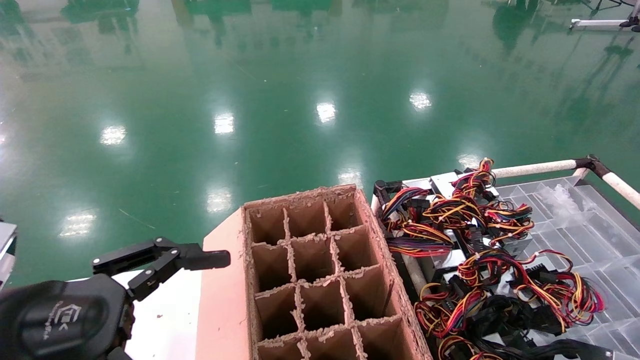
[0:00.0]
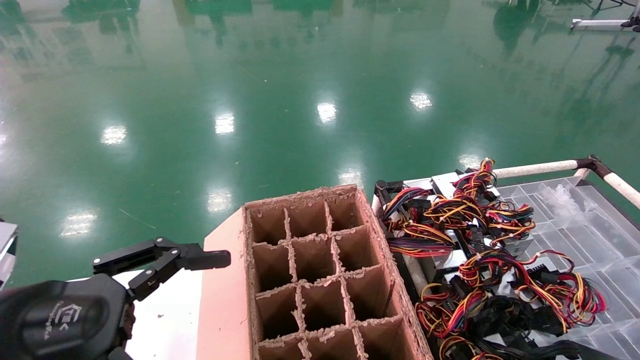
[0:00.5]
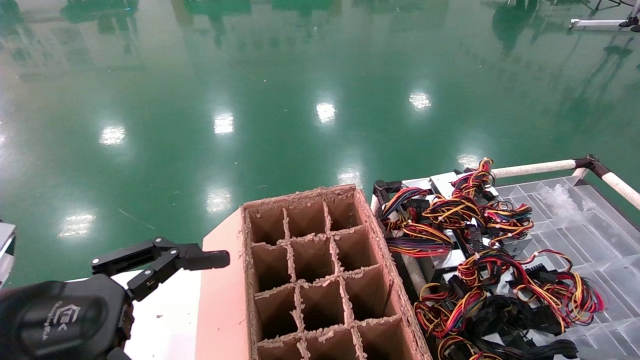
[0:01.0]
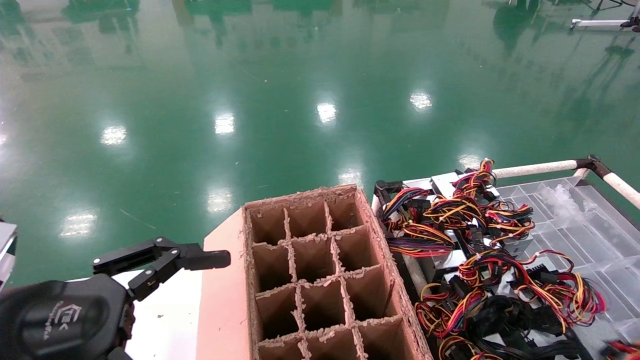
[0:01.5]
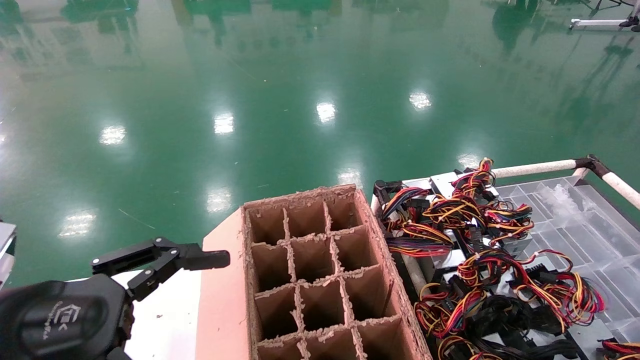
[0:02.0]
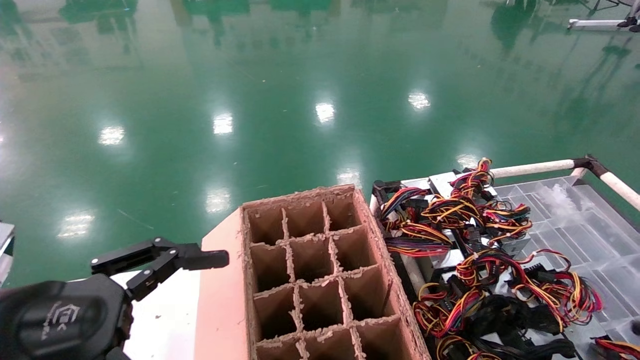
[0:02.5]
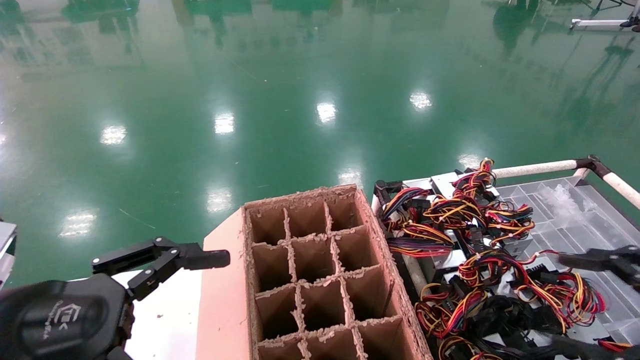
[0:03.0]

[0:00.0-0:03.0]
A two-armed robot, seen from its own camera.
0:01.5 to 0:03.0: The right gripper heads to the left, covering roughly 10 cm, and opens its fingers.

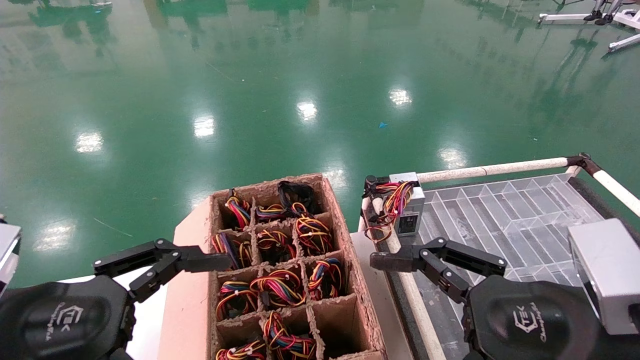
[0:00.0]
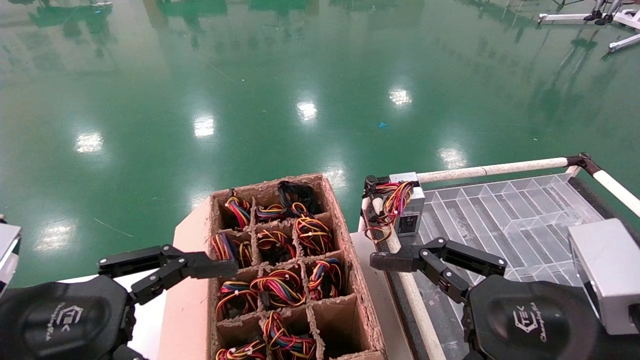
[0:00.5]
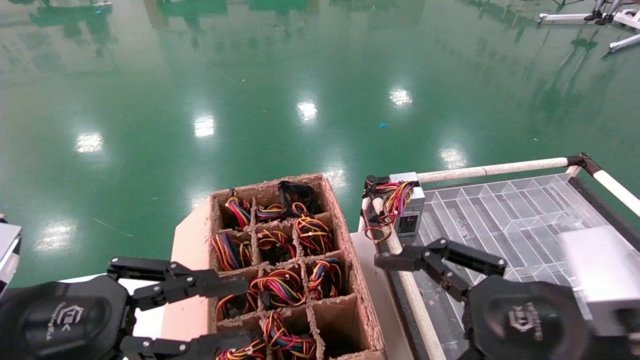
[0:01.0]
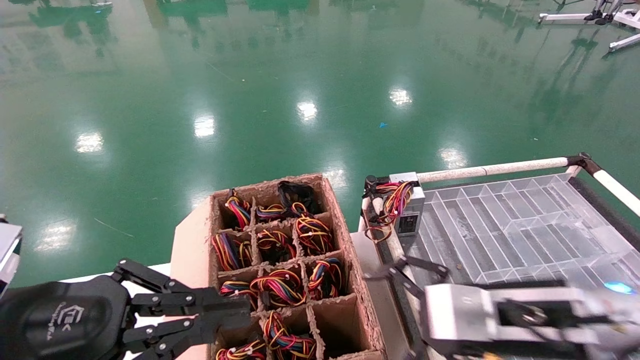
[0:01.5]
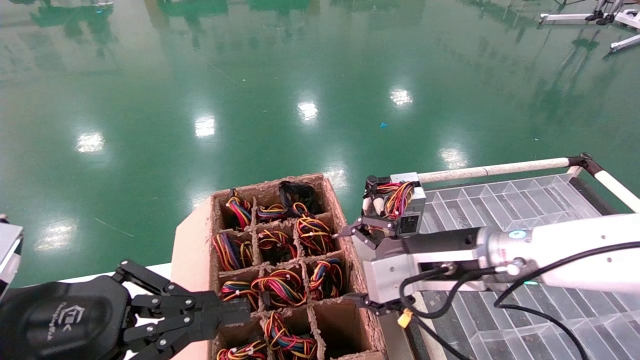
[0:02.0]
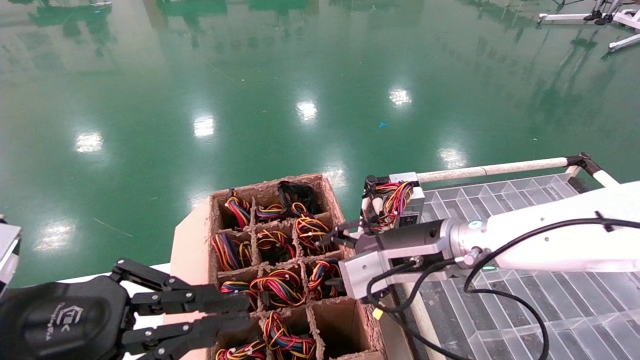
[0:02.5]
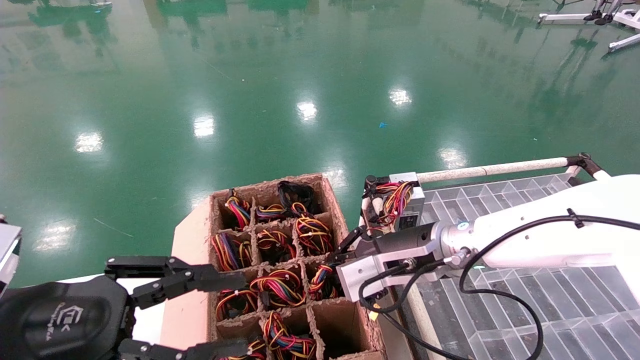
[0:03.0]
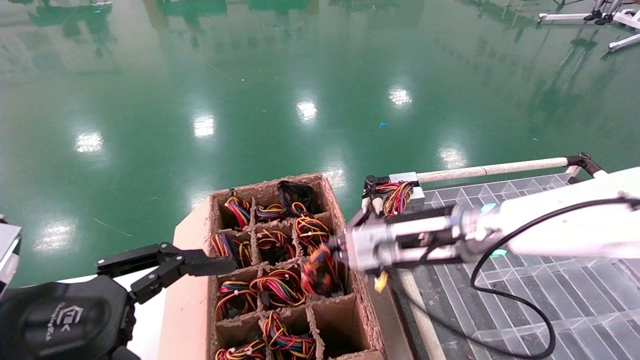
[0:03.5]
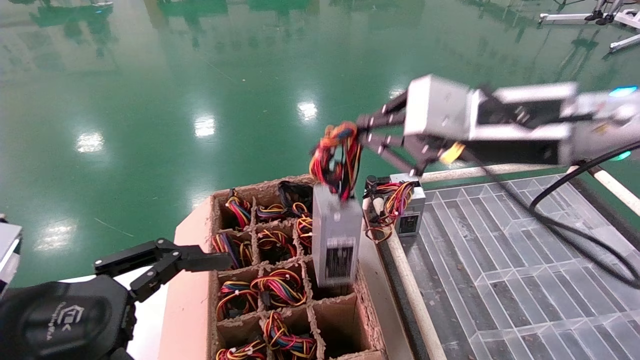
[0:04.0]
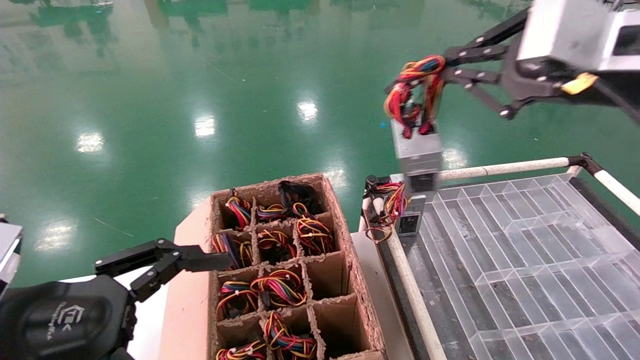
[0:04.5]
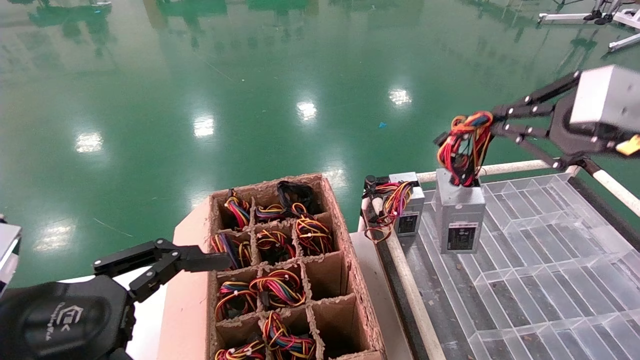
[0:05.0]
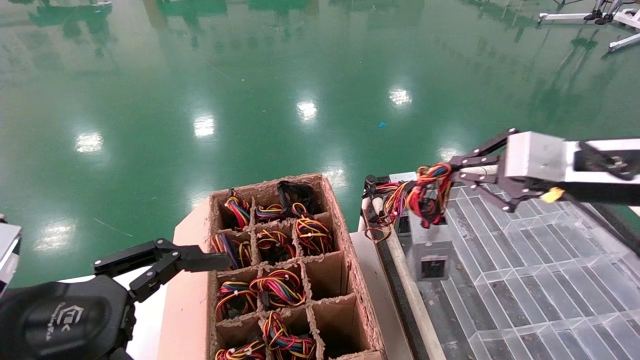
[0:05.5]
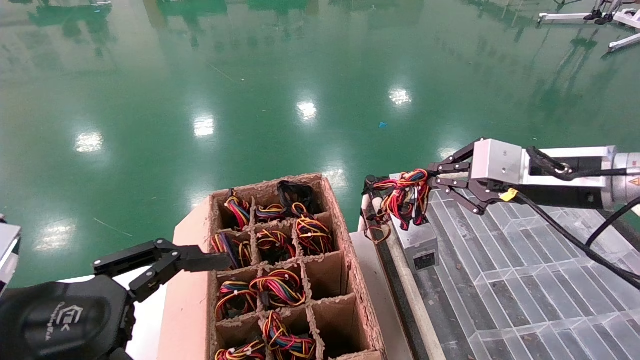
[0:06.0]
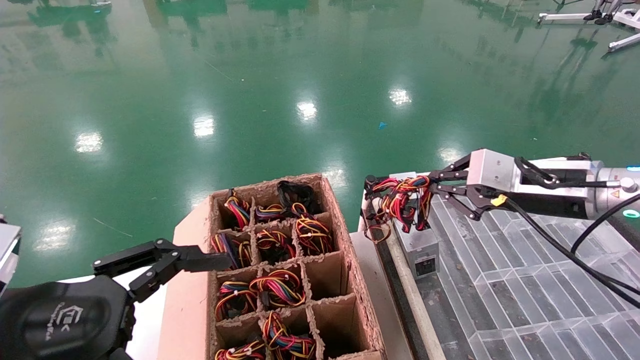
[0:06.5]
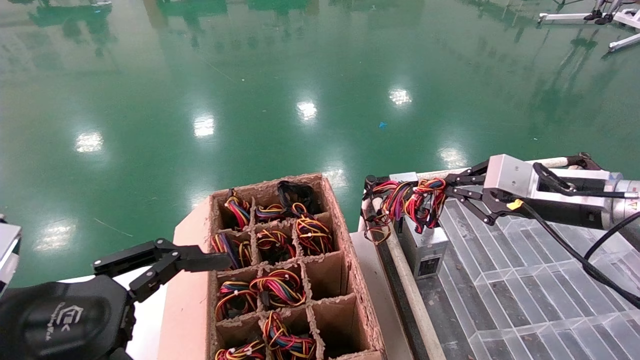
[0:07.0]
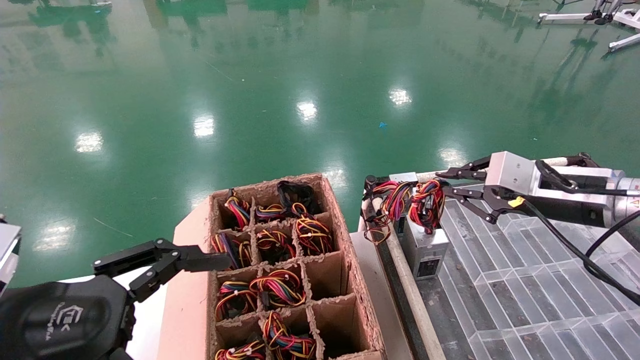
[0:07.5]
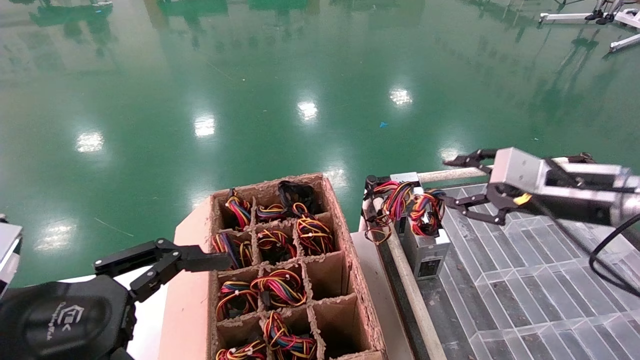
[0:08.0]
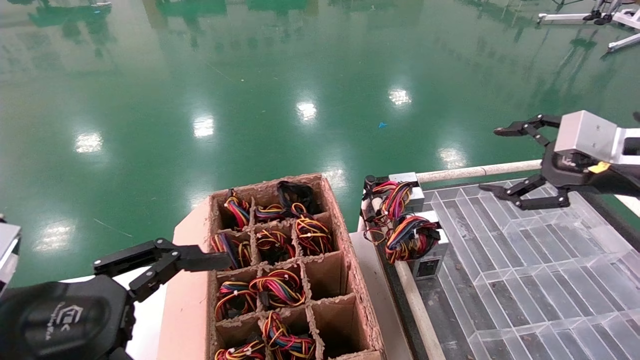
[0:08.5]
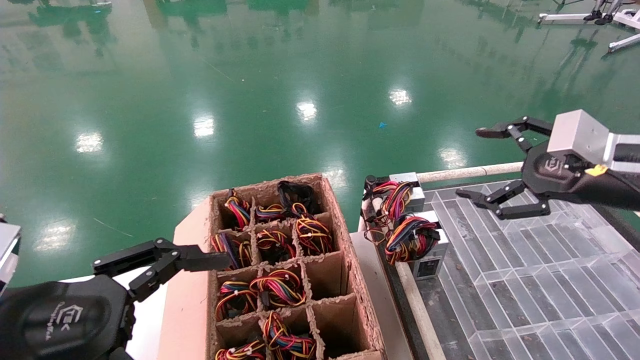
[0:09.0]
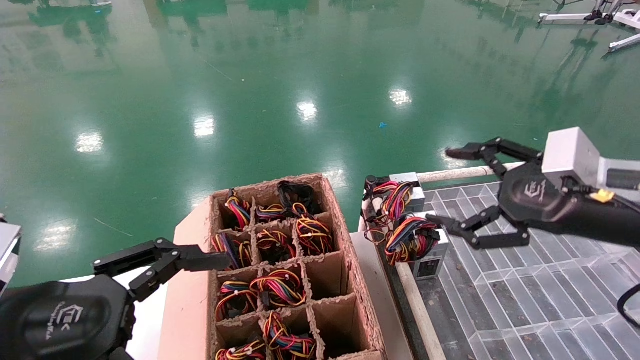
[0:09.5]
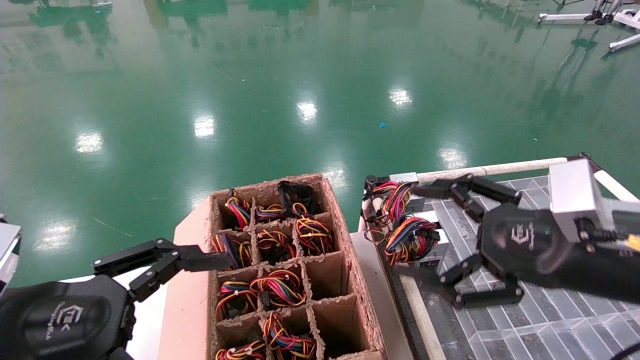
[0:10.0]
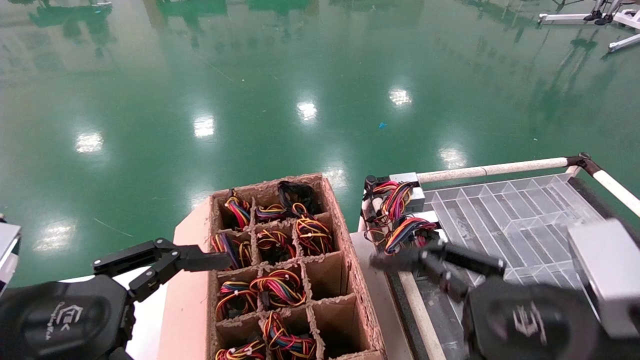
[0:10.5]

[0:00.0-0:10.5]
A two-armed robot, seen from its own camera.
Step, 0:02.0 to 0:03.0: Grab and lift the power supply from the large box.
Step, 0:03.5 to 0:07.0: Place the power supply on the operating table.
0:00.0 to 0:02.0: The left gripper closes, while the right gripper moves forward and to the left, some 15 cm.
0:02.0 to 0:04.0: The left gripper opens, while the right gripper is displaced upward by about 15 cm, and closes up.
0:04.0 to 0:06.5: The right gripper moves to the right, downward and forward, some 15 cm.
0:06.5 to 0:08.5: The right gripper heads to the right, covering approximately 5 cm, and opens its fingers.
0:08.5 to 0:10.5: The right gripper moves to the left, backward and downward, about 20 cm.

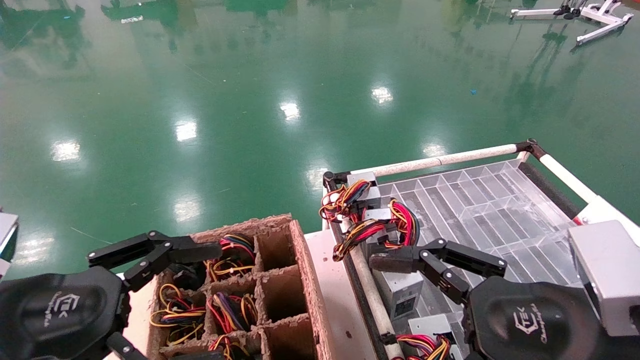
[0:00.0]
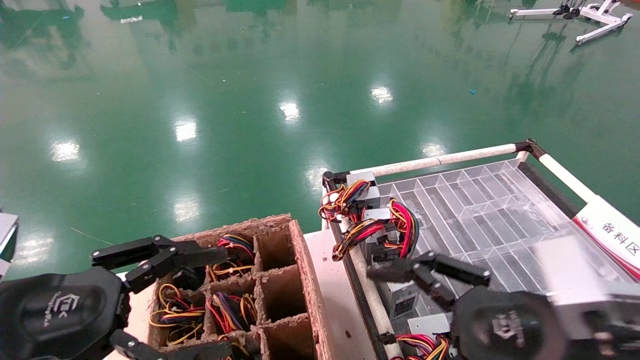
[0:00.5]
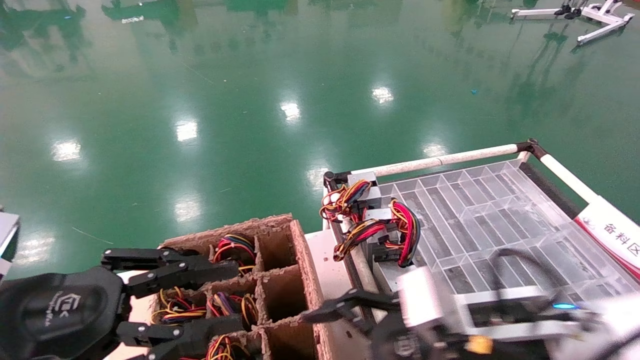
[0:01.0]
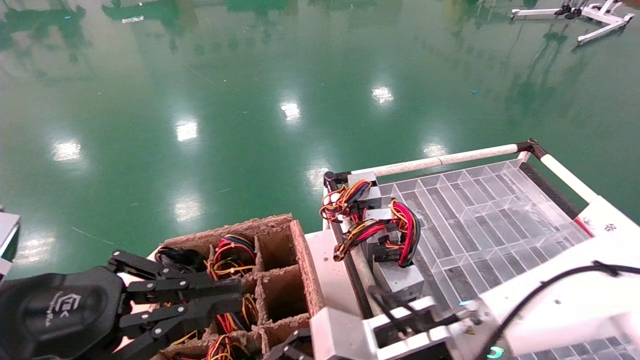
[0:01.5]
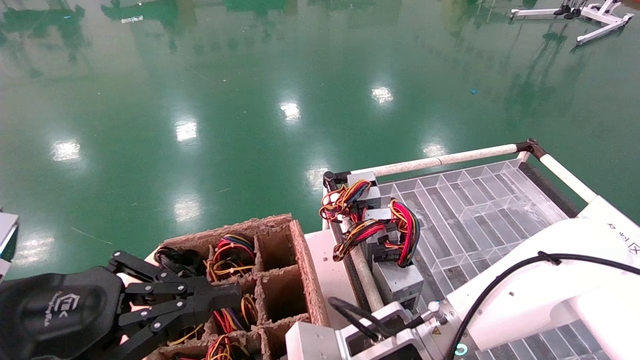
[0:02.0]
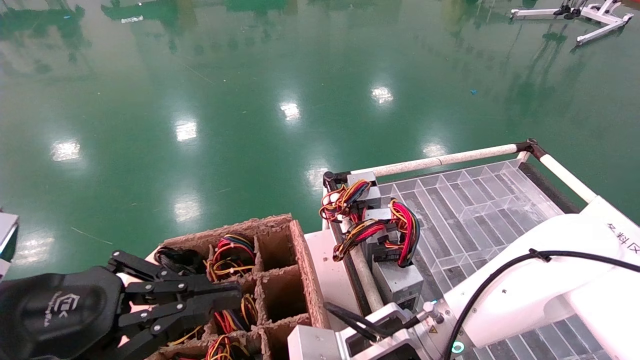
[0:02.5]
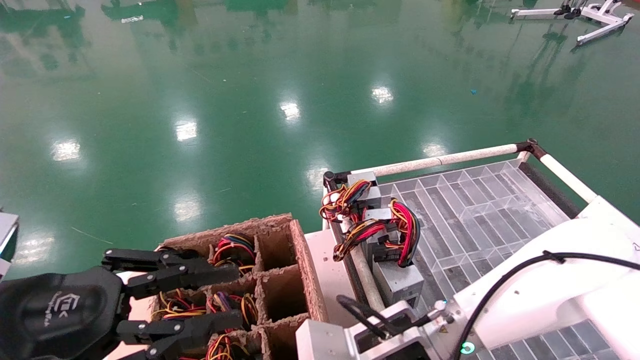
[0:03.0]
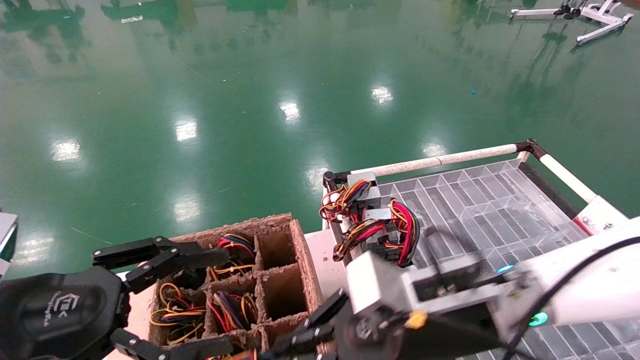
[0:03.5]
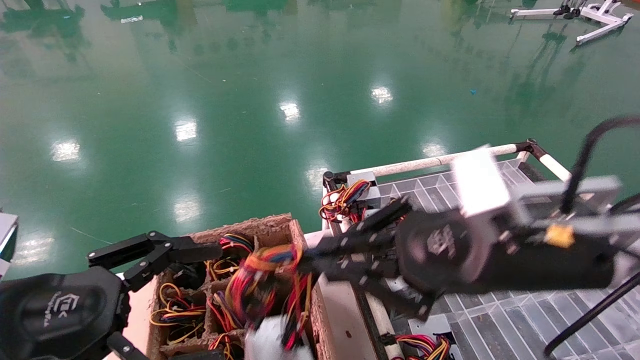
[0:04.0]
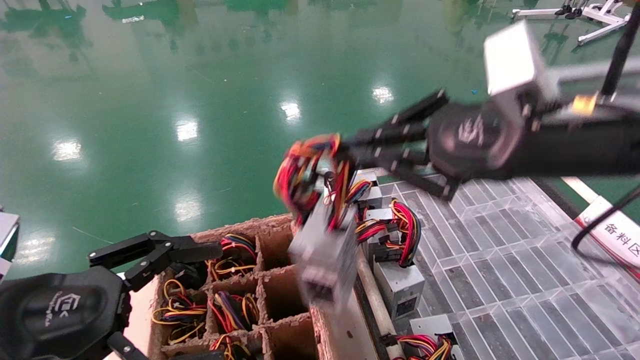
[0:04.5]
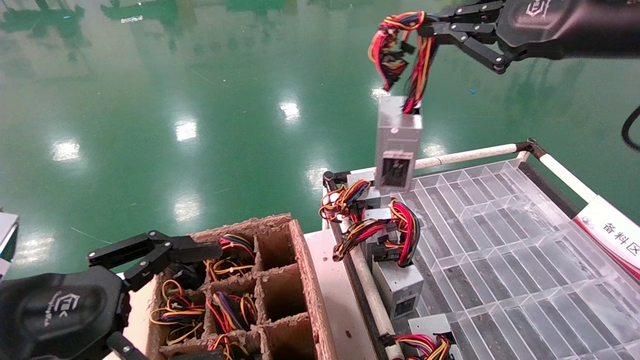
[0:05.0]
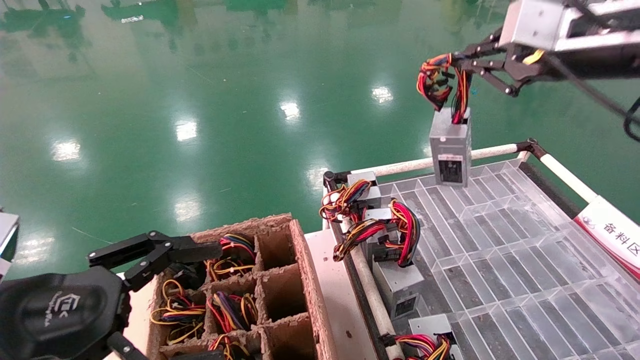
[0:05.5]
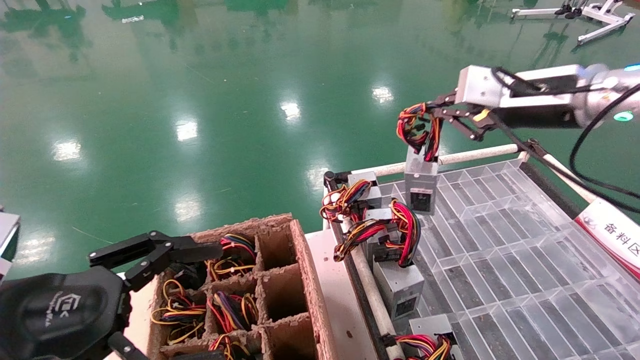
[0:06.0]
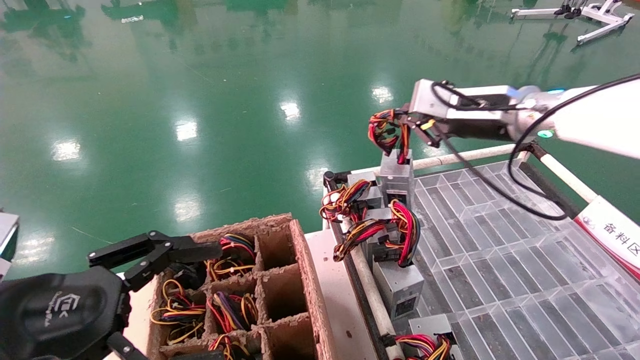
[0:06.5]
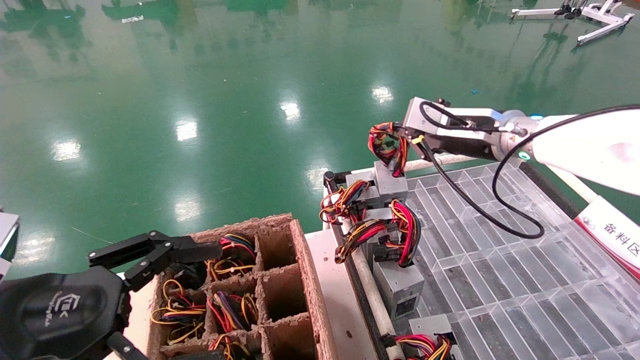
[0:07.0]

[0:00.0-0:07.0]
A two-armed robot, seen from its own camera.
Step, 0:01.0 to 0:02.5: Grab and lift the power supply from the large box.
0:00.0 to 0:02.0: The left gripper closes up; the right gripper shifts approximately 20 cm to the left, forward and downward, and closes up.
0:02.0 to 0:03.5: The right gripper shifts about 10 cm upward and to the right, and closes up; the left gripper opens up.
0:03.5 to 0:05.0: The left gripper opens its fingers; the right gripper heads upward and to the right, covering approximately 30 cm.
0:05.0 to 0:07.0: The right gripper moves forward and downward, some 20 cm.
